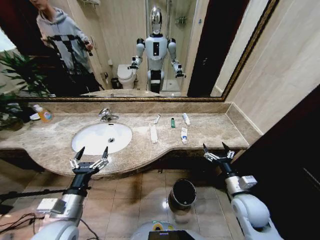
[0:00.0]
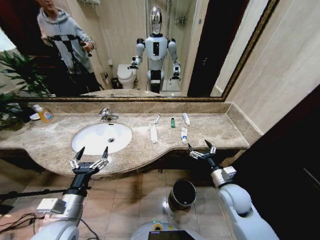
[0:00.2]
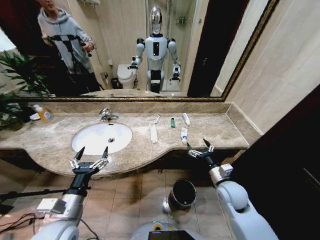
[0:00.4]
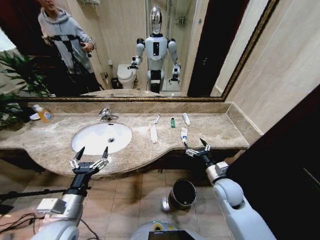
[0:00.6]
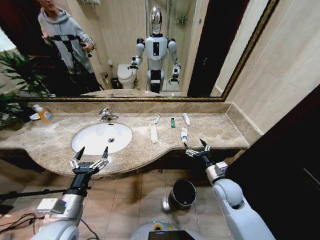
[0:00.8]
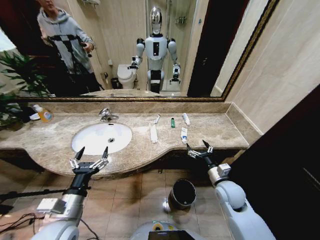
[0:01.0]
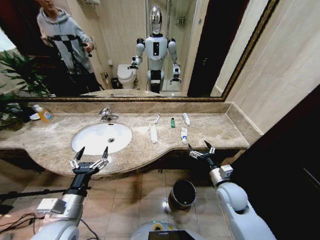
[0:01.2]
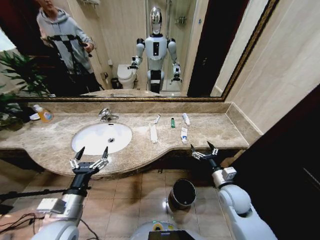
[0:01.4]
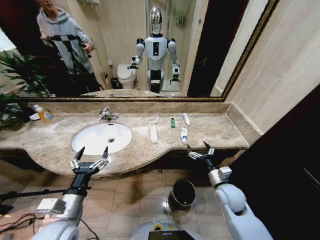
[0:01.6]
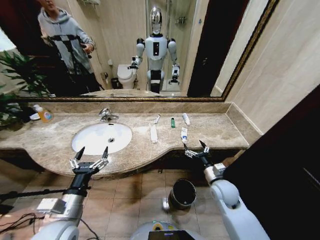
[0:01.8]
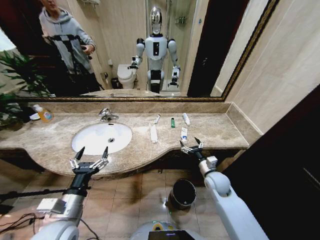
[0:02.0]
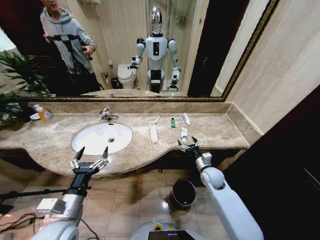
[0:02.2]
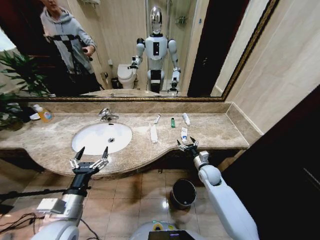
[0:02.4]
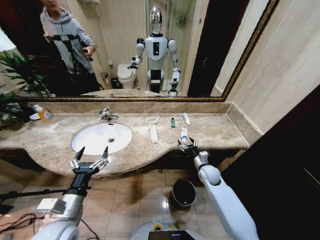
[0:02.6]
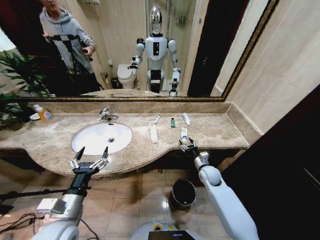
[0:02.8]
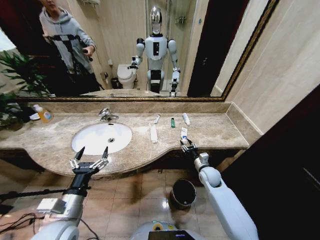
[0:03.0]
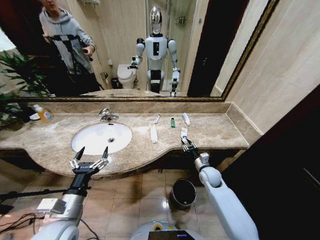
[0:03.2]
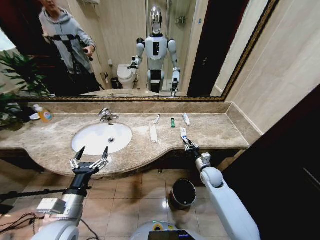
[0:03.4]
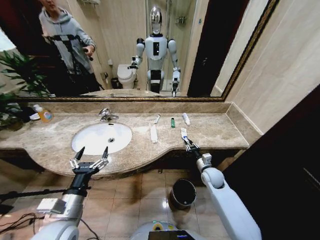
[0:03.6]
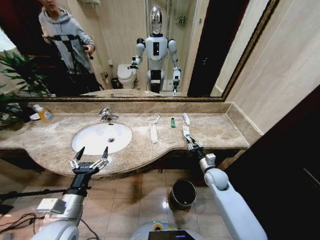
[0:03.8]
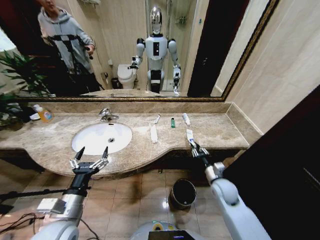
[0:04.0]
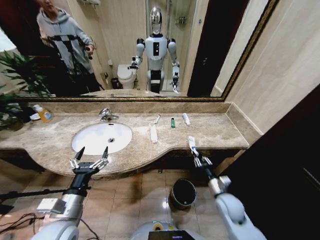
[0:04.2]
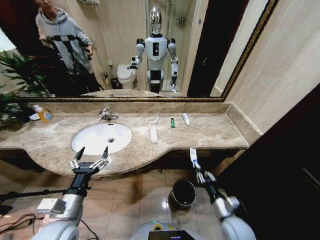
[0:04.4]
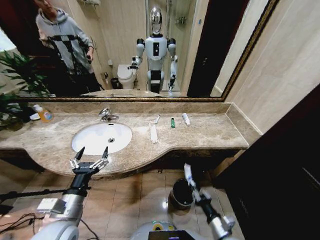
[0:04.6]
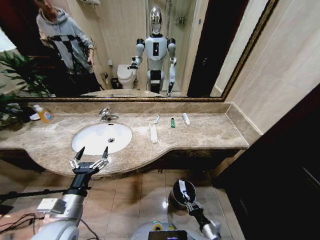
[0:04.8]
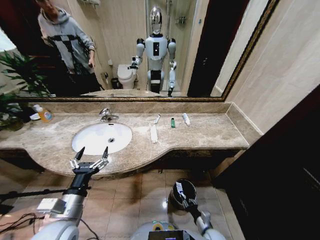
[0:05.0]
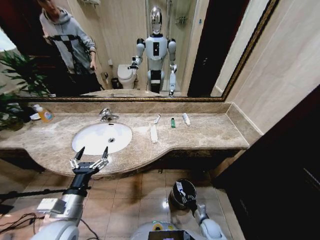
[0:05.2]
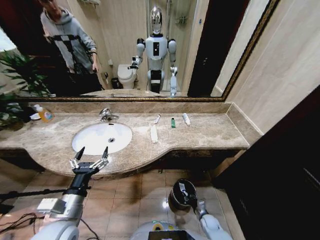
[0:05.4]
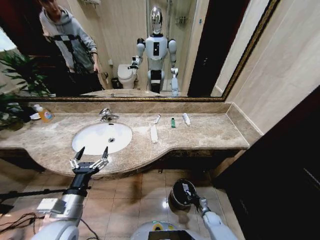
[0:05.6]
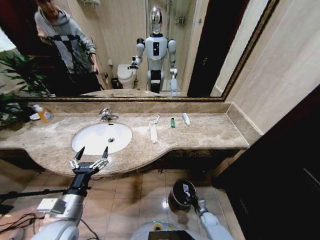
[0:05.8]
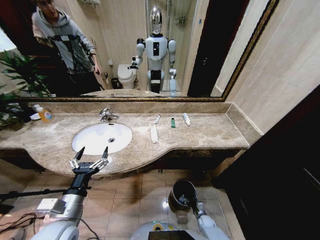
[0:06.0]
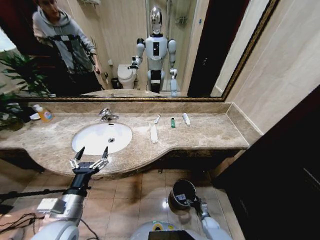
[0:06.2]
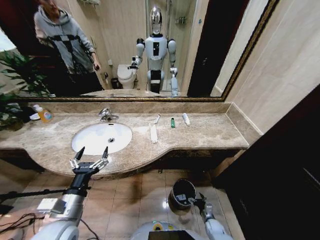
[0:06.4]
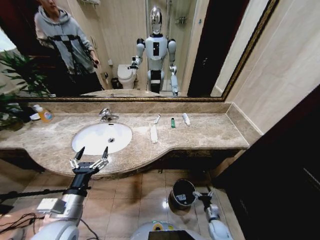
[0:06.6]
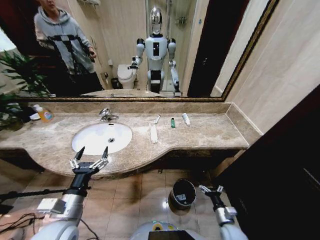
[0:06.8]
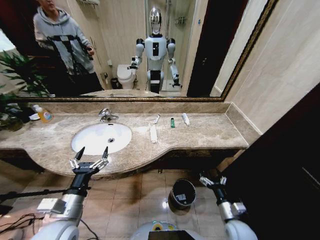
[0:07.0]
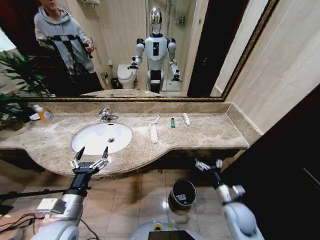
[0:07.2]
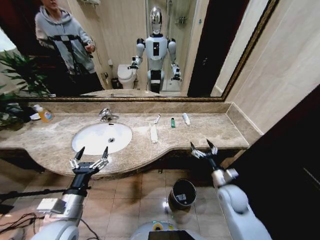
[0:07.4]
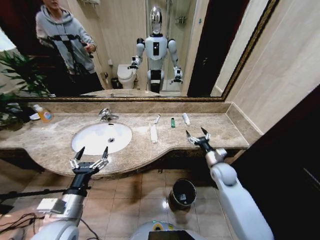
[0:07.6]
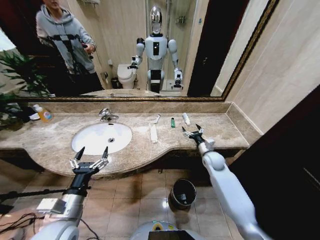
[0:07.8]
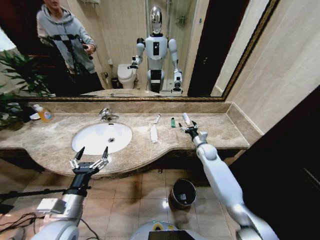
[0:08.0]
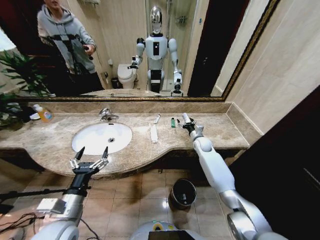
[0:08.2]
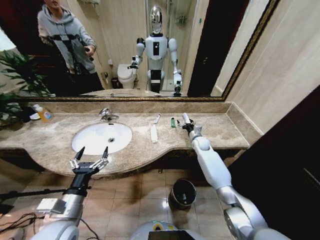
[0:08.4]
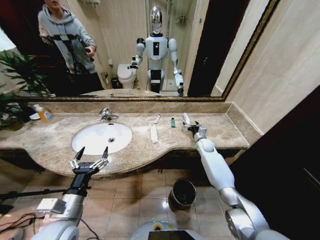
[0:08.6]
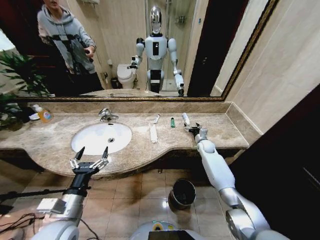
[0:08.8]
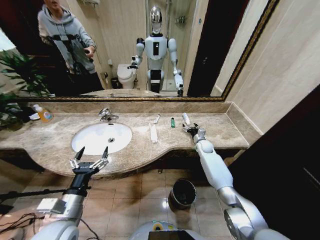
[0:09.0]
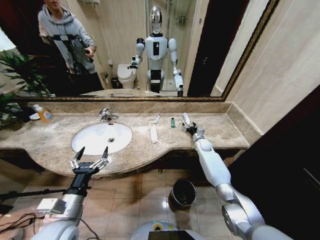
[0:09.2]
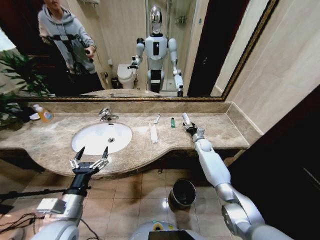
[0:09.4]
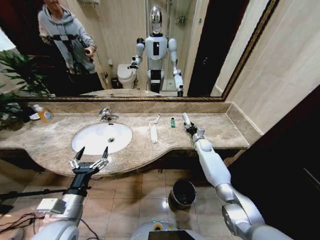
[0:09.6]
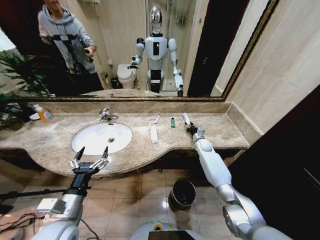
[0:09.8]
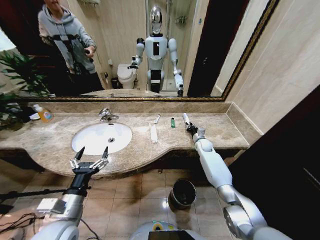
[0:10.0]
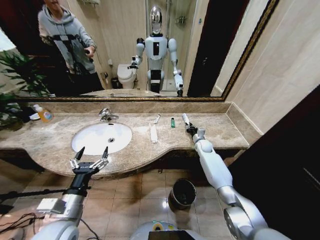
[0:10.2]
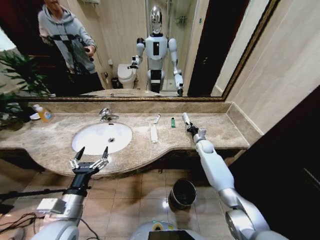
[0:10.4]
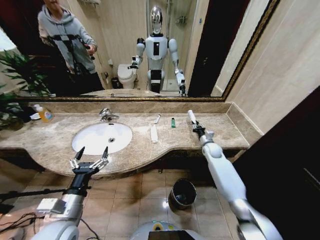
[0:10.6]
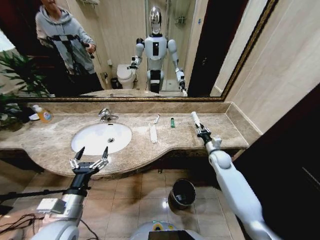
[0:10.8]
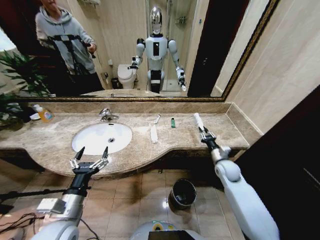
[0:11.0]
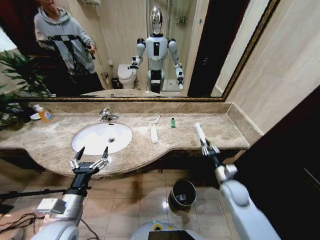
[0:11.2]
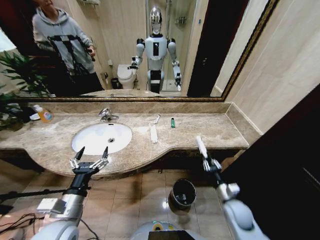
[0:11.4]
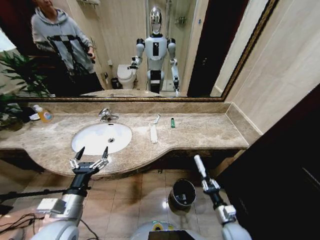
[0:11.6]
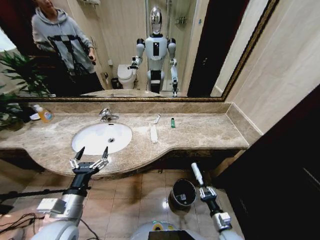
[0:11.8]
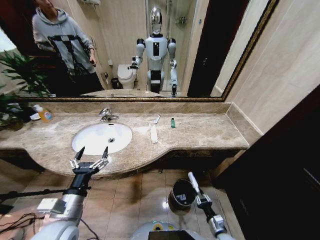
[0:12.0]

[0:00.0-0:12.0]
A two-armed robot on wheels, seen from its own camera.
Task of the whole recording: Pick up the trash from the sink and place it in the trash bin.
0:01.6 to 0:03.0: The right gripper heads forward and downward, covering some 15 cm, and closes its fingers.
0:03.0 to 0:04.4: The right gripper goes roughly 20 cm backward.
0:04.4 to 0:06.0: The right gripper shifts roughly 30 cm downward.
0:06.0 to 0:07.6: The right gripper shifts about 35 cm upward, and opens its fingers.
0:07.6 to 0:09.0: The right gripper is displaced forward by roughly 20 cm.
0:09.0 to 0:10.4: The right gripper closes up.
0:10.4 to 0:12.0: The right gripper moves backward and downward, about 50 cm.

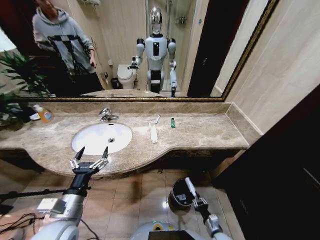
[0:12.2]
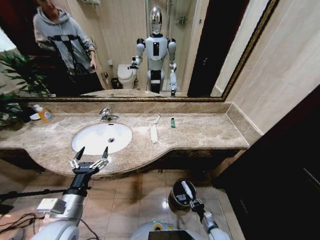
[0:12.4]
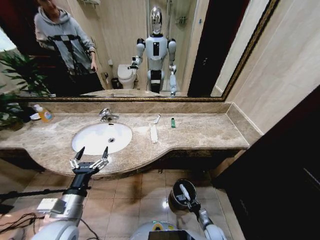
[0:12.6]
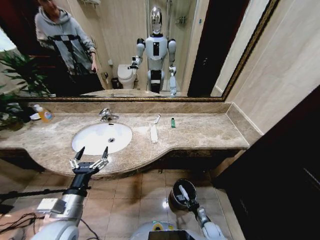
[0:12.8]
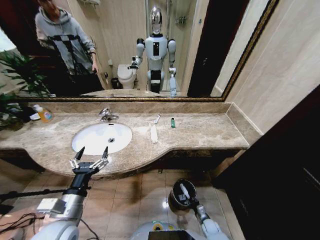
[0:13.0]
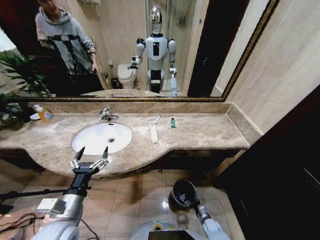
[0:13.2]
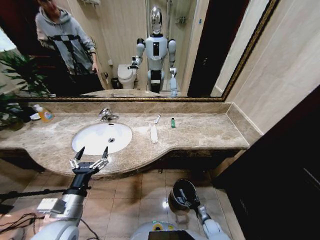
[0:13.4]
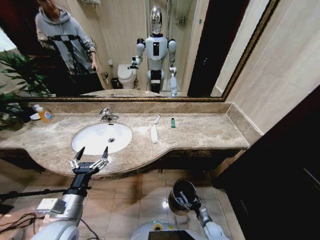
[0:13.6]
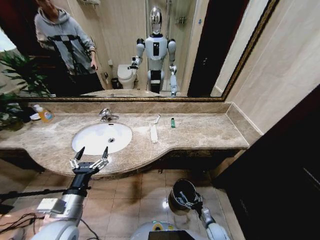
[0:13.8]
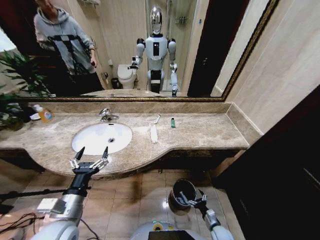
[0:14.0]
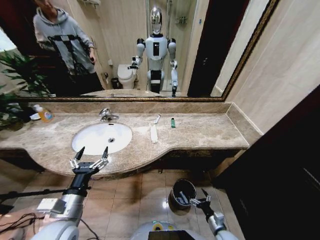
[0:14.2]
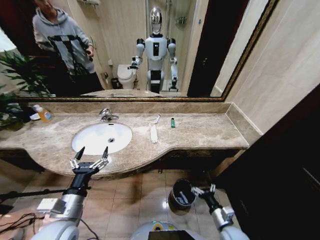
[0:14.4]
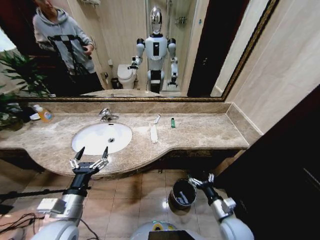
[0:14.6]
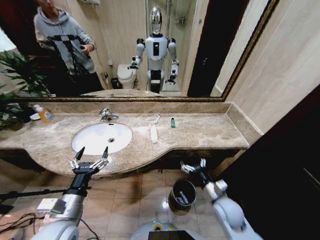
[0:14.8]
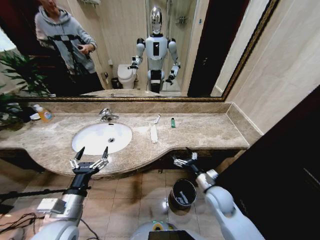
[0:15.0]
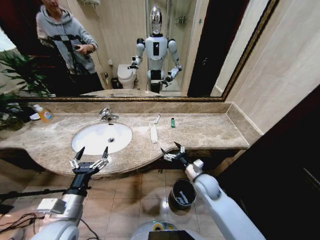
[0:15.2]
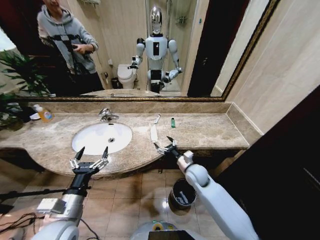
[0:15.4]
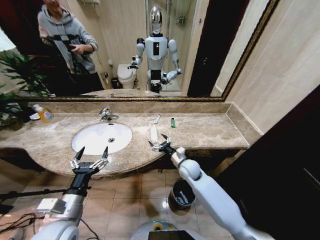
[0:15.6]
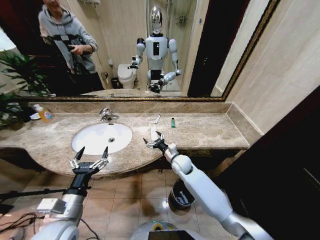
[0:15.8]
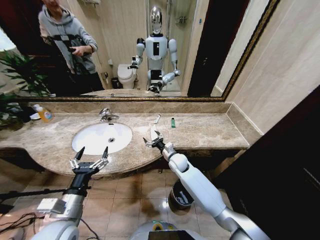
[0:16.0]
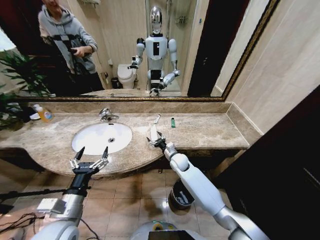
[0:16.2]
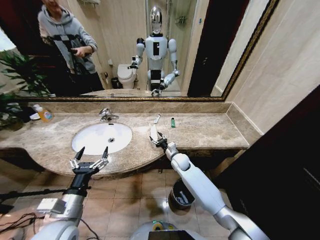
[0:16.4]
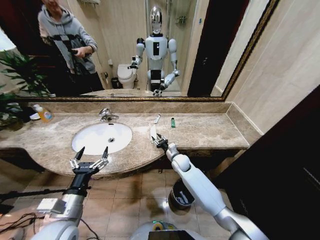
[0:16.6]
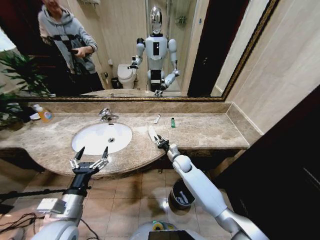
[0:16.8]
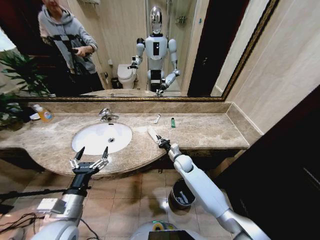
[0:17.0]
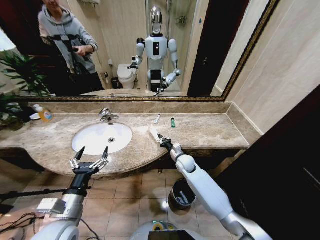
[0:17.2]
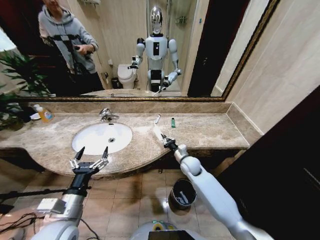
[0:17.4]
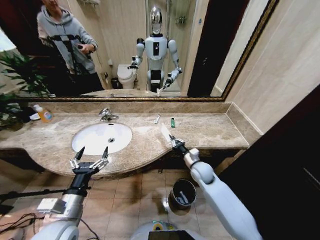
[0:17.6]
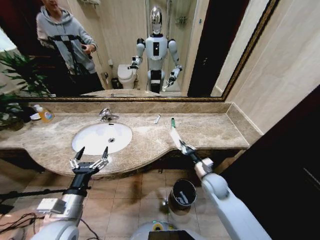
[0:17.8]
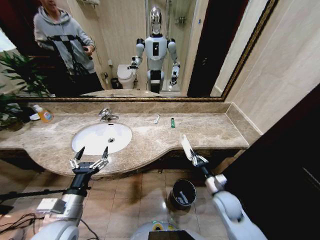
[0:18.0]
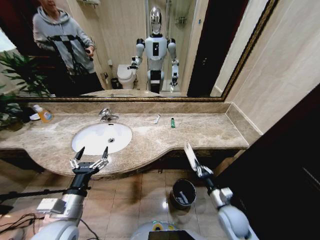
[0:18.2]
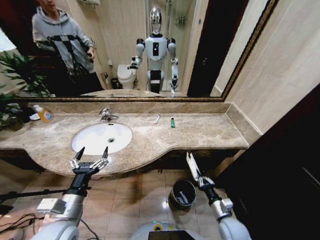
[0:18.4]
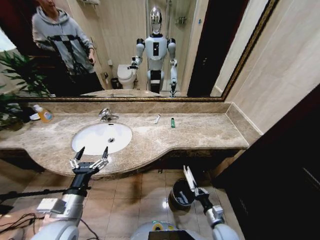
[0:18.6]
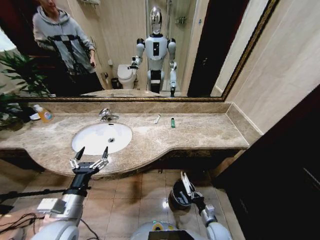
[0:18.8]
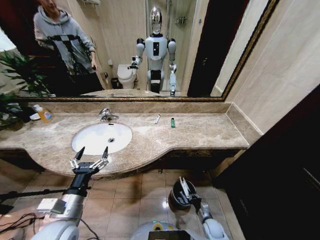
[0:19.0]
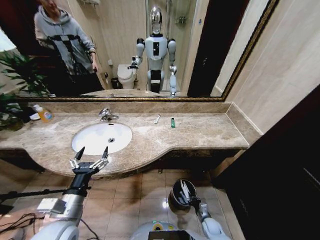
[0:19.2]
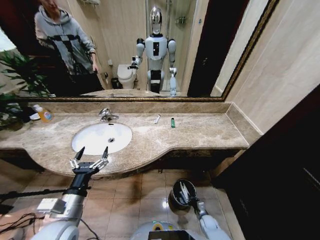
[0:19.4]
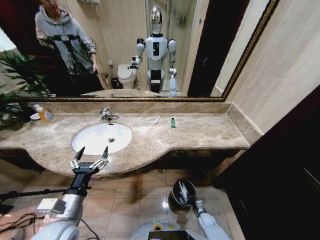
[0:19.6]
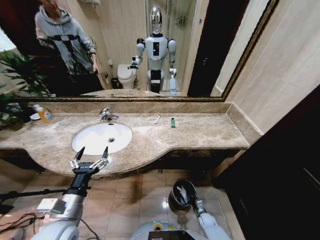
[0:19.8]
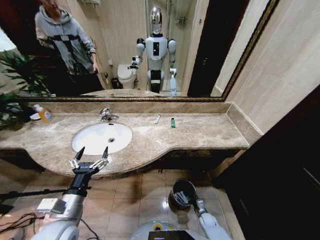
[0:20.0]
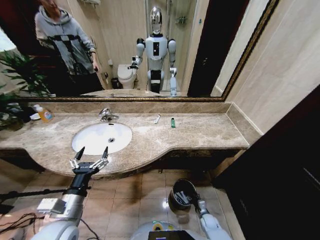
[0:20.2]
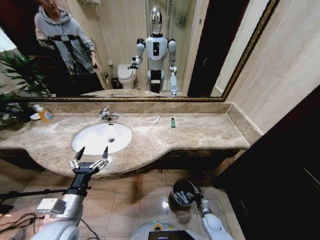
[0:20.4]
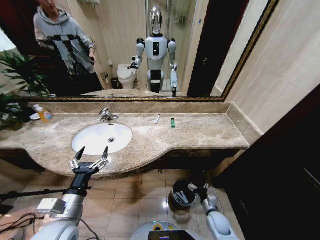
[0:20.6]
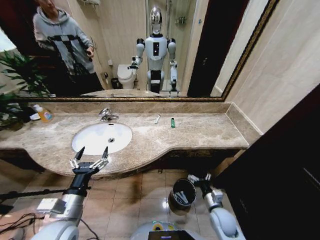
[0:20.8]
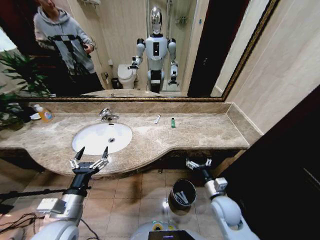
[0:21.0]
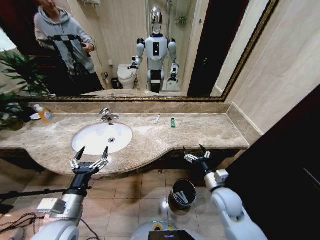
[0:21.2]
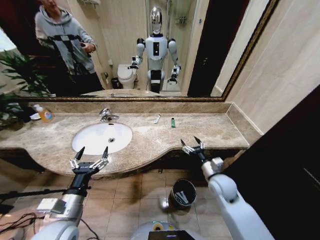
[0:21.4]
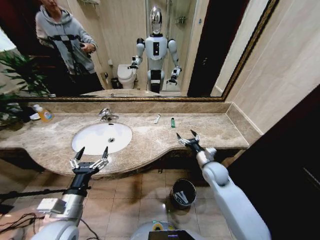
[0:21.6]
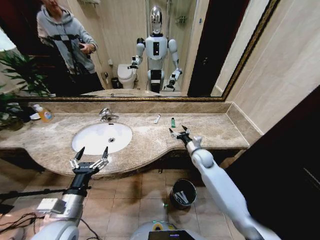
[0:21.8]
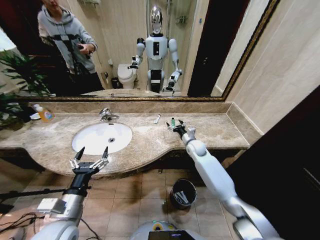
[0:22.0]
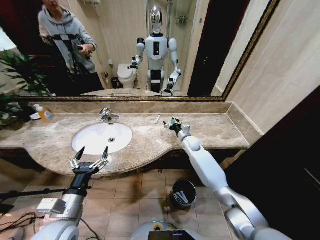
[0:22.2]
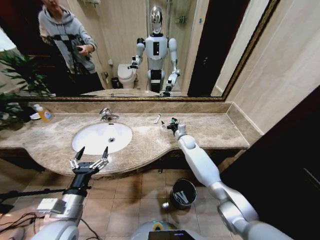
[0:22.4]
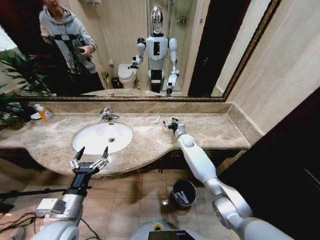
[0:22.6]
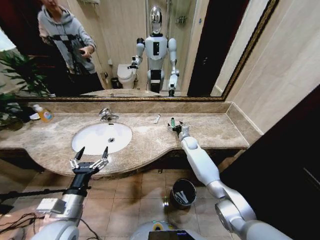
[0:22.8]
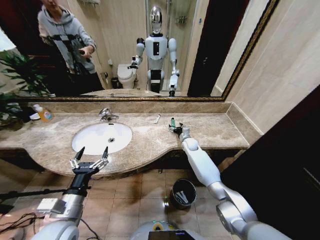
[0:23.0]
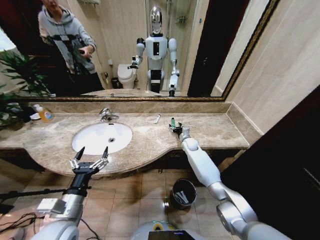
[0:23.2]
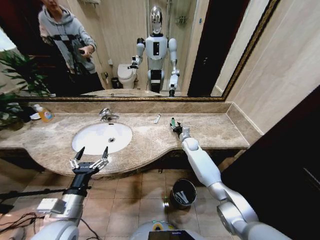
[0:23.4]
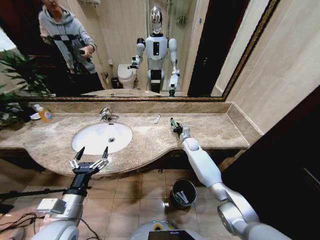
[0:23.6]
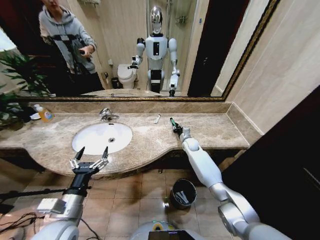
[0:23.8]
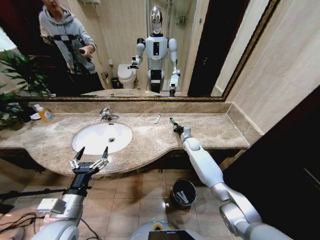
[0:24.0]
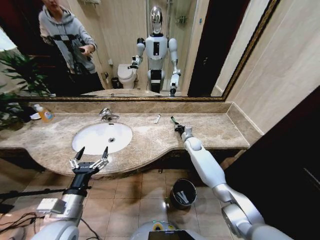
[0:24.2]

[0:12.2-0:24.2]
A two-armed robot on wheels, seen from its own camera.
Task of the whole recording: Pick up the trash from the sink and place it in the trash bin.
0:12.2 to 0:13.8: The right gripper travels downward by roughly 5 cm, and opens up.
0:13.8 to 0:15.2: The right gripper heads upward and forward, covering roughly 30 cm.
0:15.2 to 0:16.6: The right gripper shifts about 15 cm forward and to the left, and closes.
0:16.6 to 0:18.2: The right gripper travels backward and to the right by about 30 cm, and closes up.
0:18.2 to 0:19.8: The right gripper is displaced downward by about 30 cm.
0:19.8 to 0:21.2: The right gripper moves upward, about 35 cm, and opens.
0:21.2 to 0:22.6: The right gripper travels forward by some 30 cm.
0:22.6 to 0:24.2: The right gripper closes its fingers.
